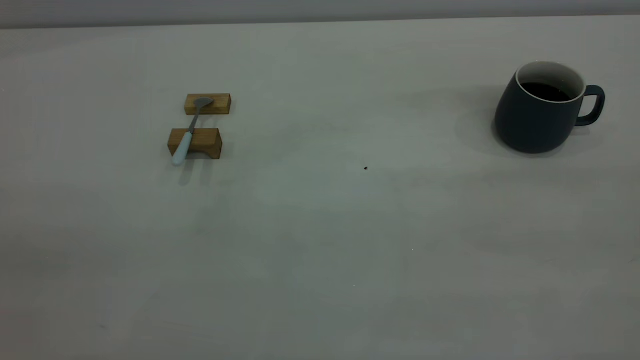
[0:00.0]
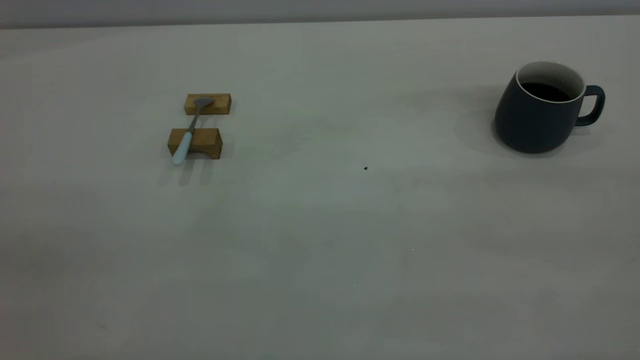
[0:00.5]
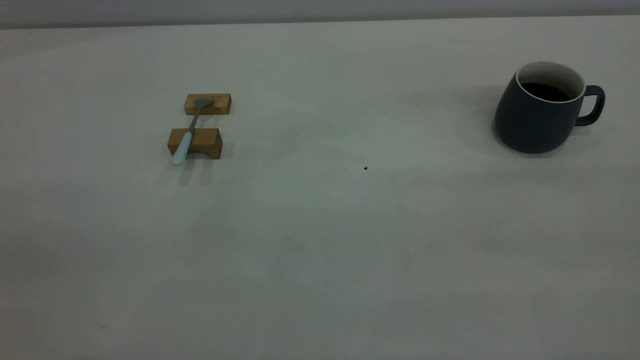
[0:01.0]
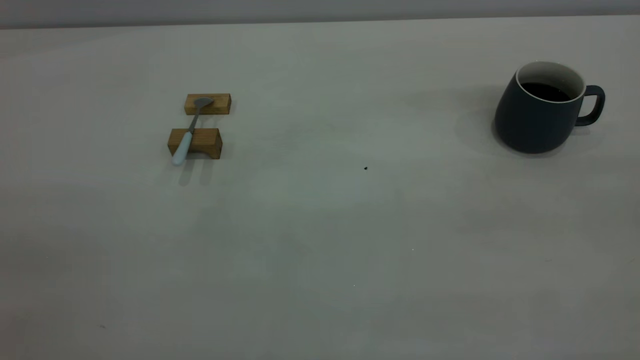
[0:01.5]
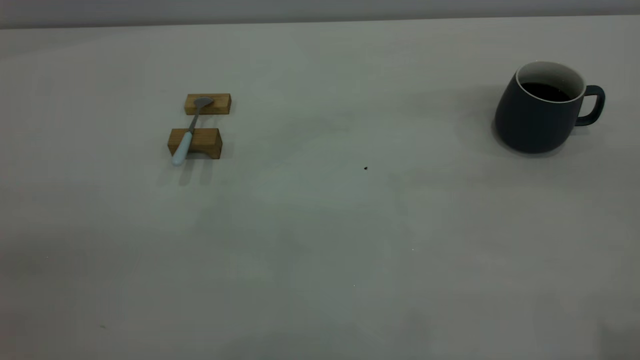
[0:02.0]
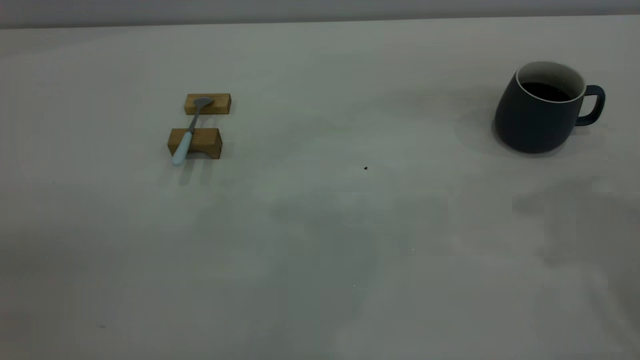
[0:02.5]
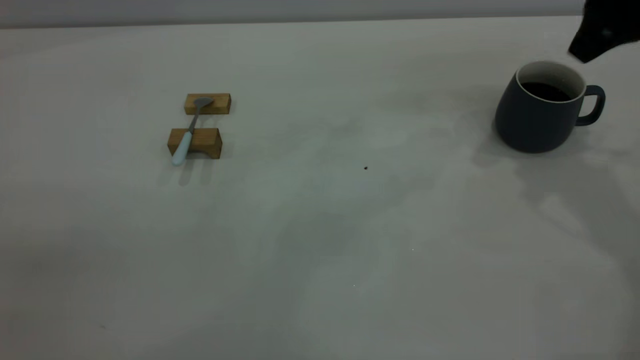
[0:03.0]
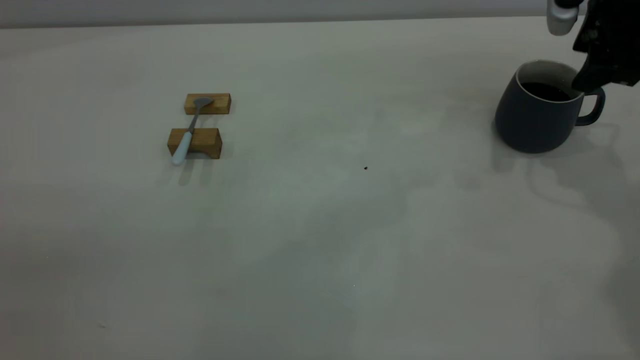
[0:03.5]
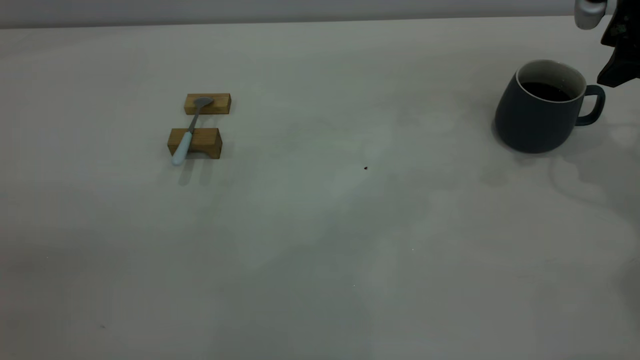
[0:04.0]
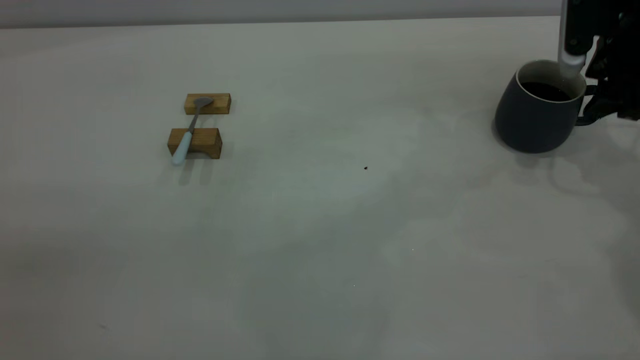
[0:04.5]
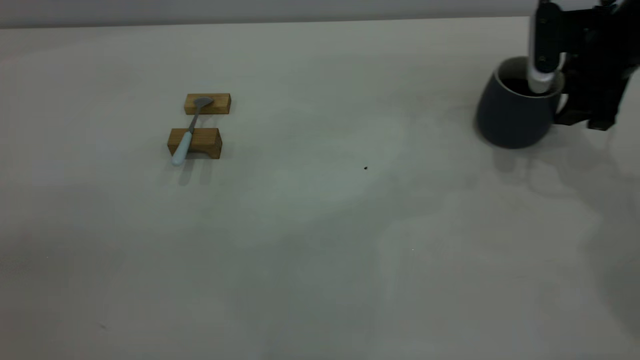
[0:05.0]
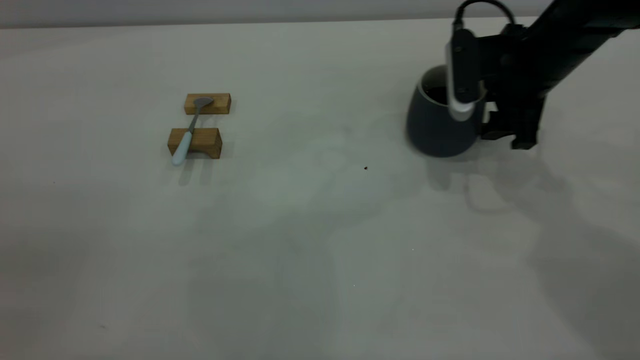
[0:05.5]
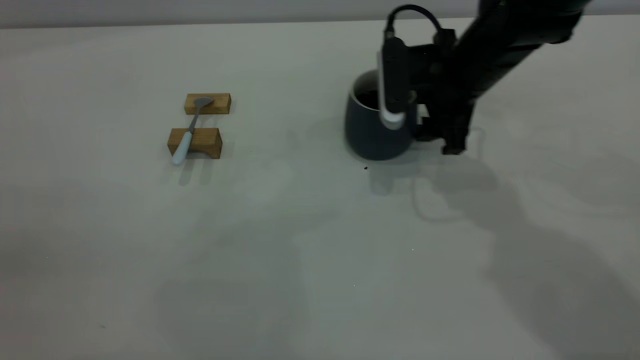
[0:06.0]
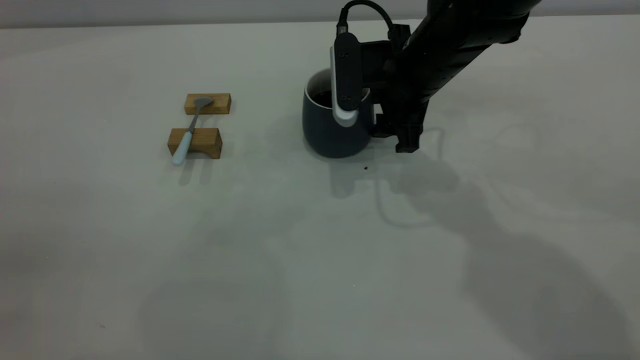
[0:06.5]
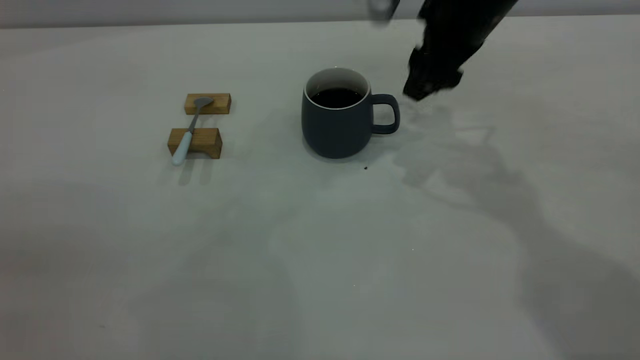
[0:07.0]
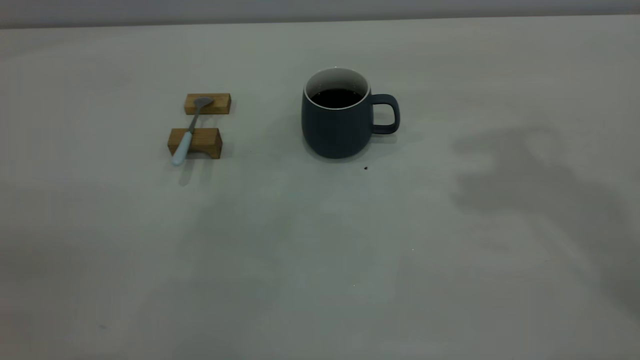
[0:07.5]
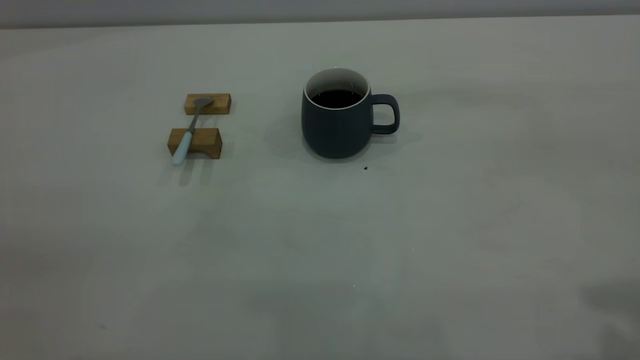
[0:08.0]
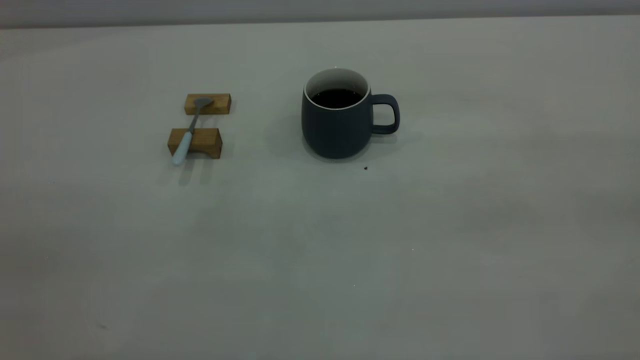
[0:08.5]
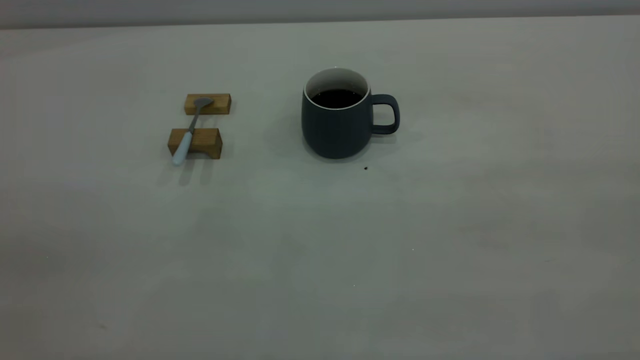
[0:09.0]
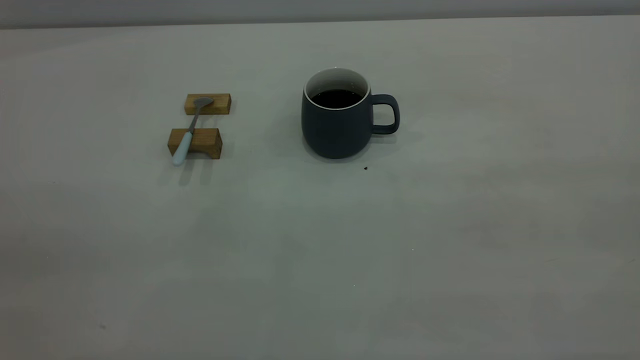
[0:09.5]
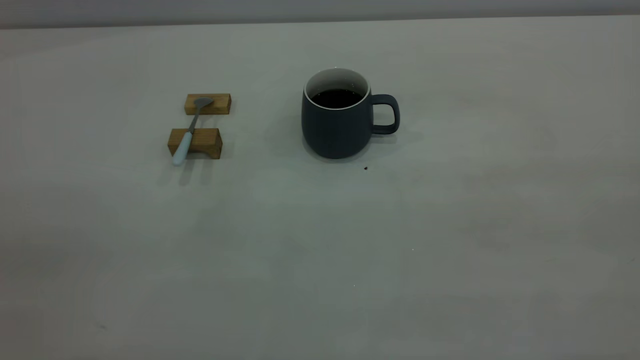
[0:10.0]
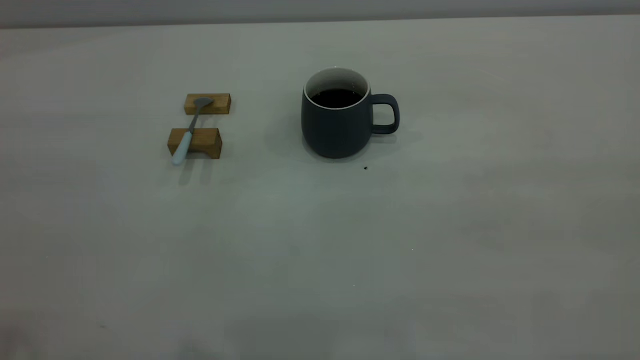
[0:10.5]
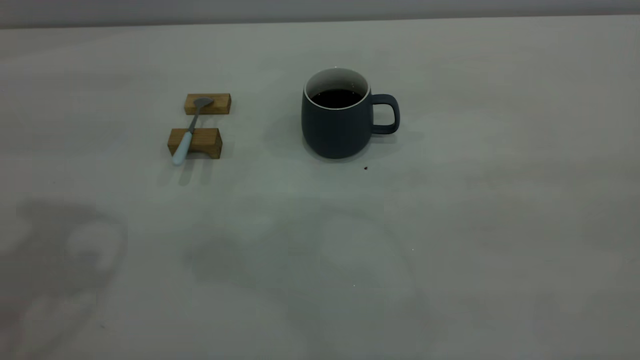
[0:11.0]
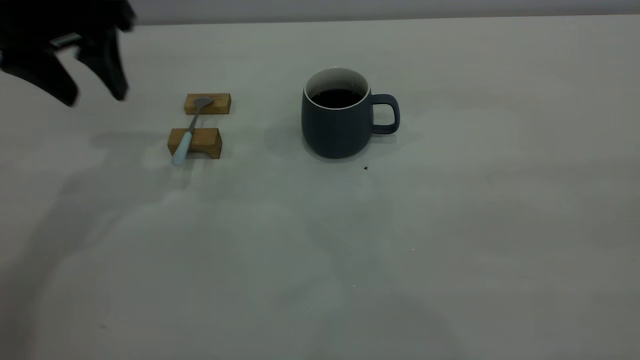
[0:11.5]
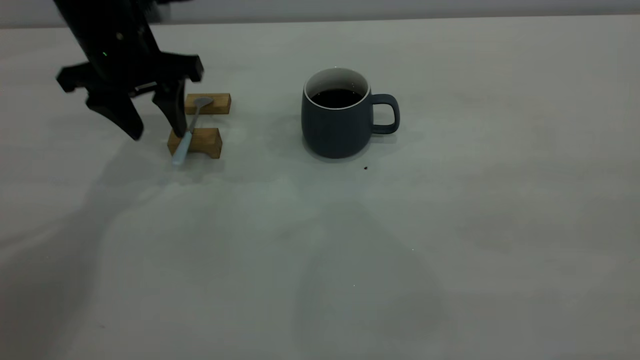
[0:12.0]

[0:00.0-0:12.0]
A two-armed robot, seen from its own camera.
Step, 0:00.0 to 0:07.0: Move the cup with coffee to the center of view.
0:02.0 to 0:04.0: The right gripper goes approximately 35 cm forward and downward.
0:04.0 to 0:06.0: The right gripper is displaced to the left and downward by about 20 cm.
0:06.0 to 0:08.0: The right gripper moves backward, upward and to the right, some 40 cm.
0:10.0 to 0:12.0: The left gripper goes about 50 cm forward and downward.

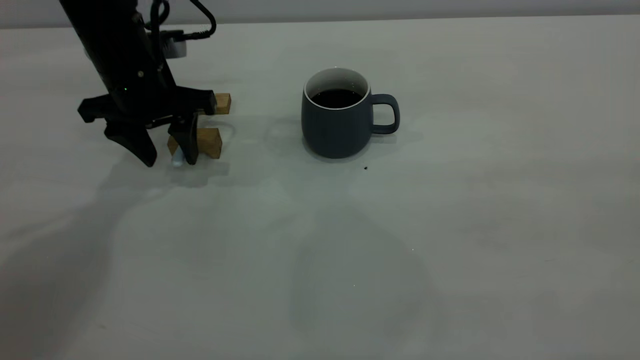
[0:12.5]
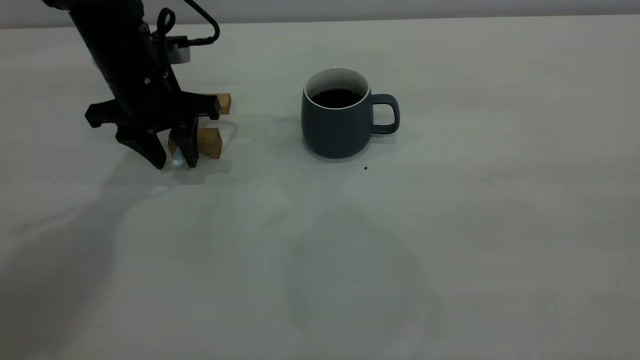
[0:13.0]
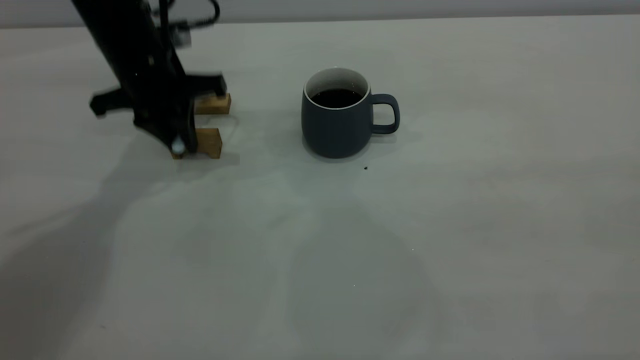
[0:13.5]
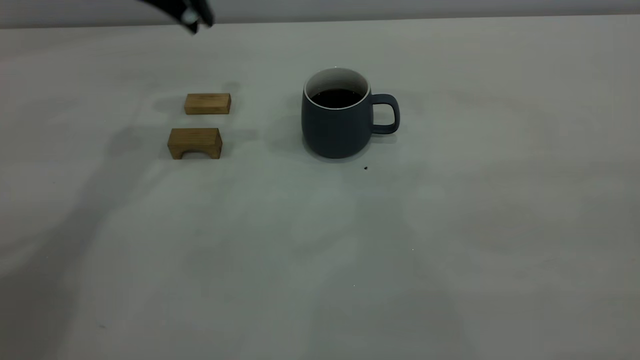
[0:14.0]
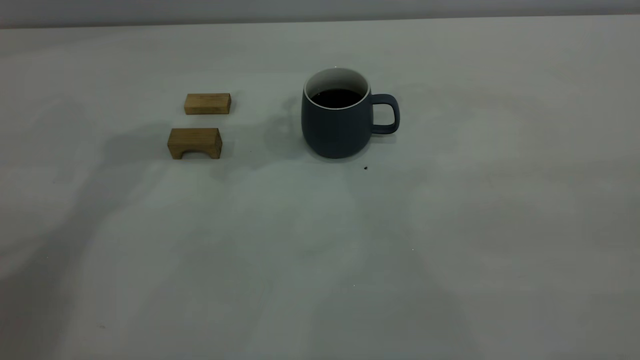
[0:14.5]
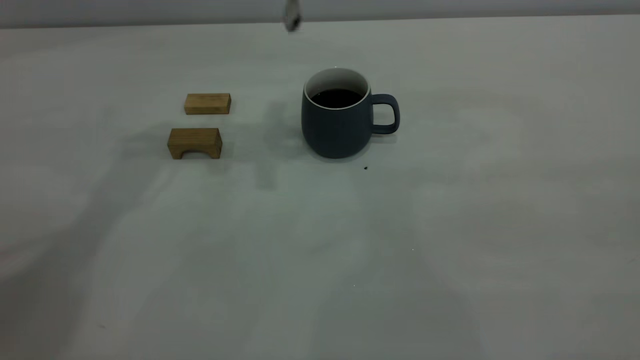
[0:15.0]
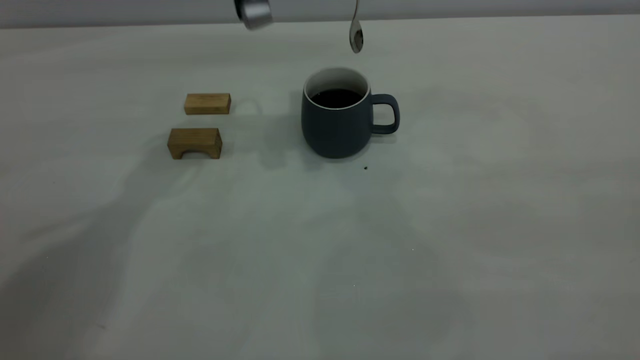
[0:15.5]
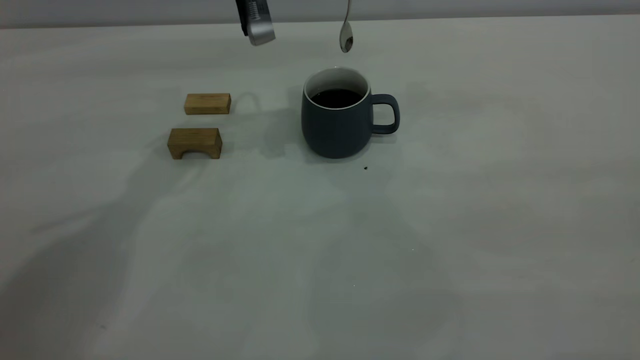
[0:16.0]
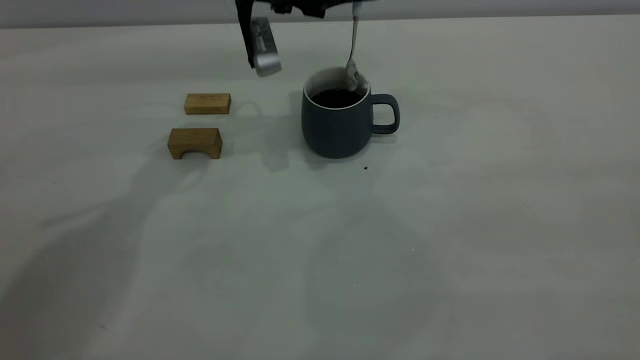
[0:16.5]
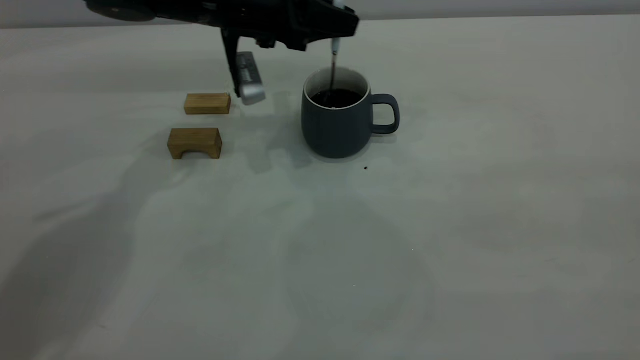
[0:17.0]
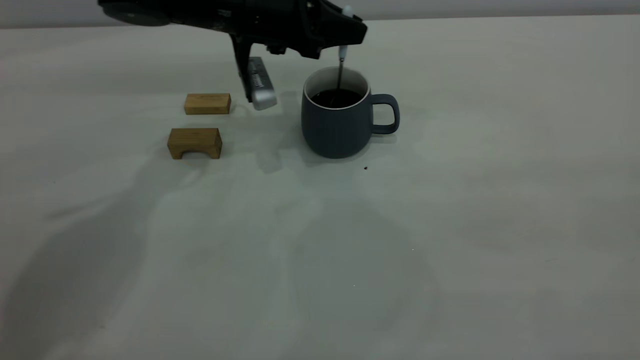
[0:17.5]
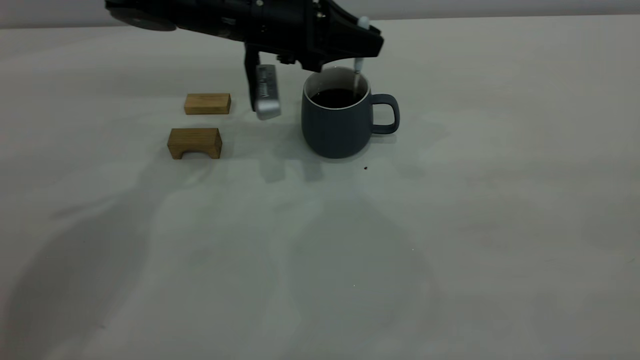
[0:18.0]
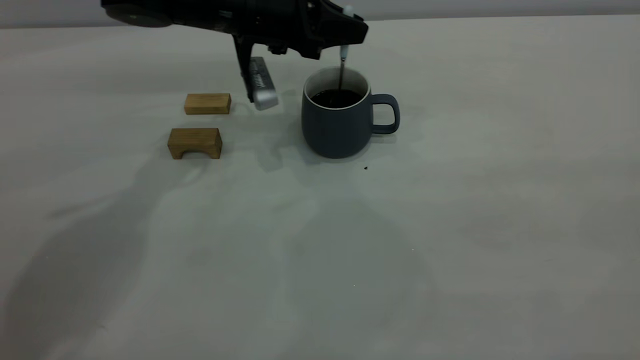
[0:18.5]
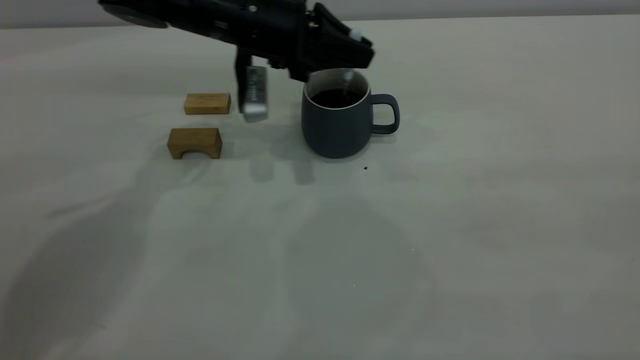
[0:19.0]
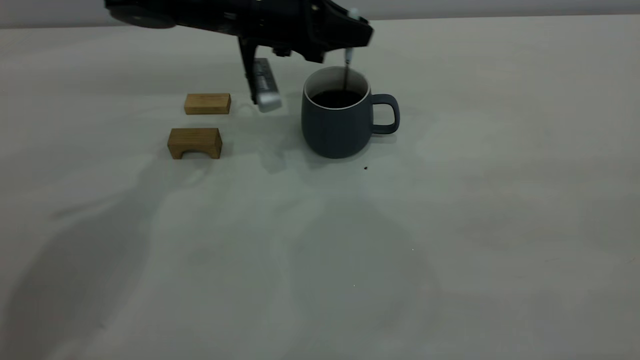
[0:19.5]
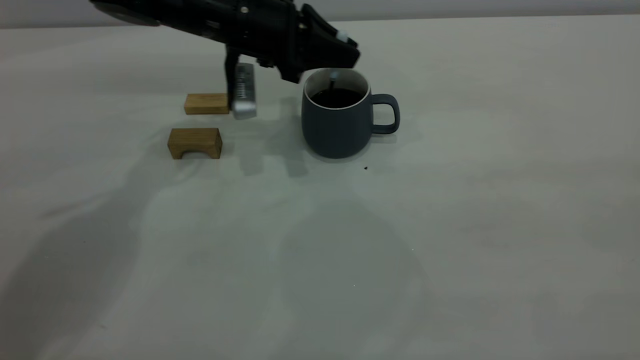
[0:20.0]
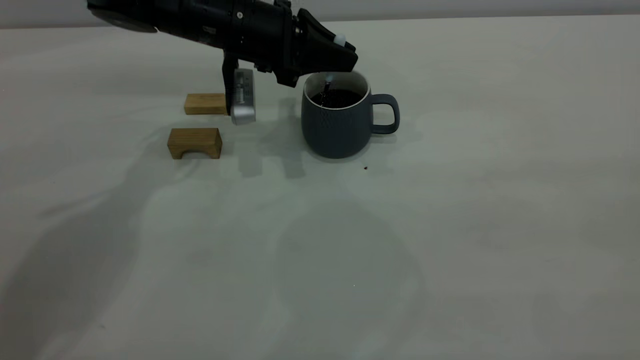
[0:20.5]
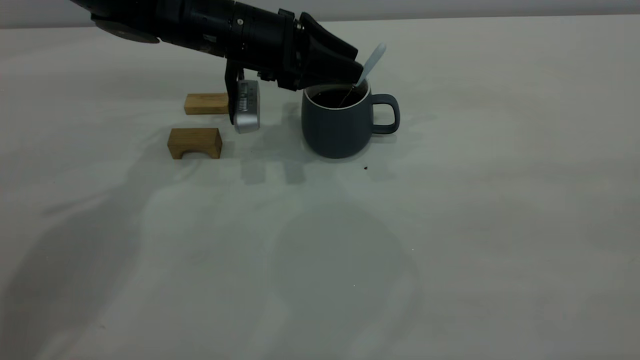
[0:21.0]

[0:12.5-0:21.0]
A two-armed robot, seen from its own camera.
0:12.5 to 0:14.5: The left gripper heads upward, covering about 20 cm, and closes.
0:14.5 to 0:16.5: The left gripper shifts about 15 cm downward.
0:16.5 to 0:19.0: There are only small adjustments of the grippers.
0:19.0 to 0:21.0: The left gripper opens its fingers.
